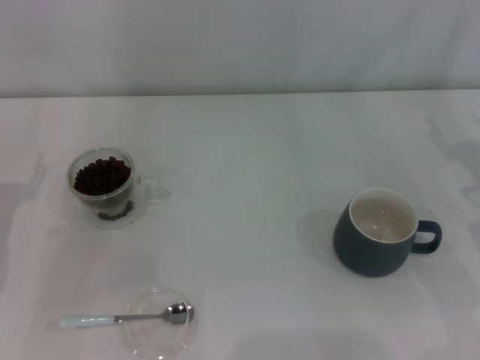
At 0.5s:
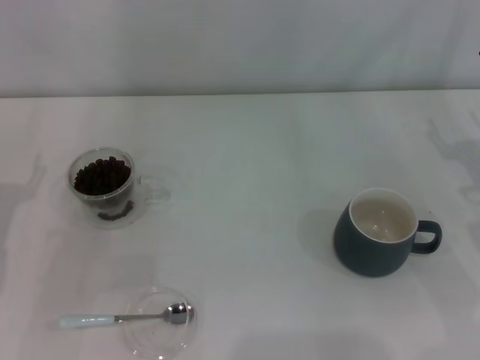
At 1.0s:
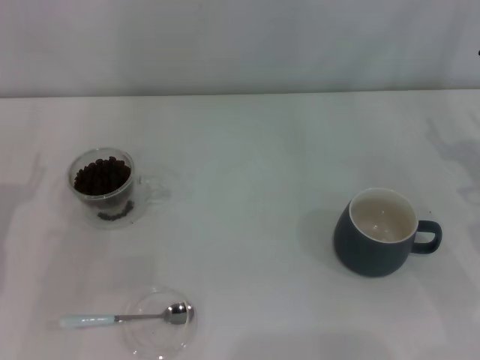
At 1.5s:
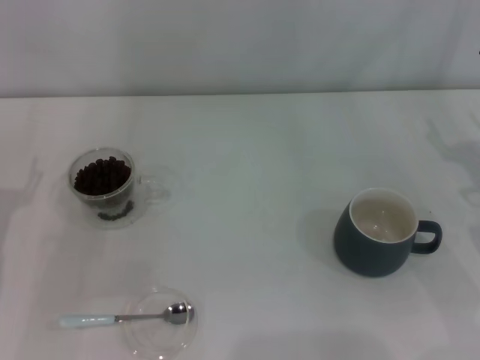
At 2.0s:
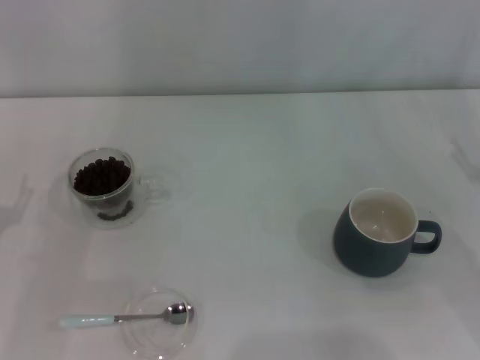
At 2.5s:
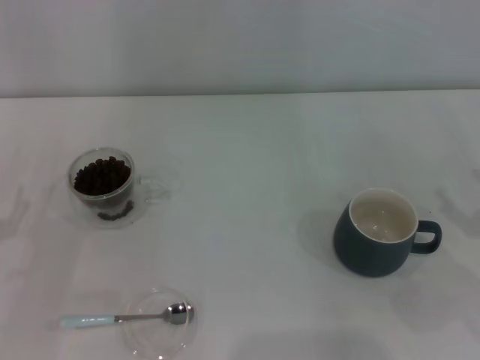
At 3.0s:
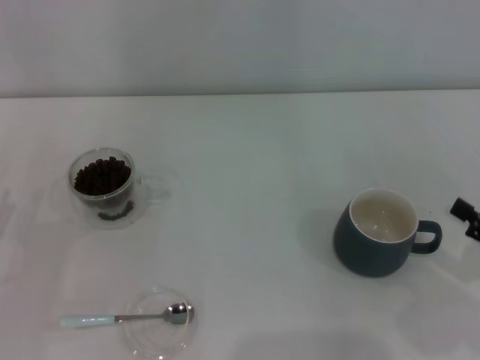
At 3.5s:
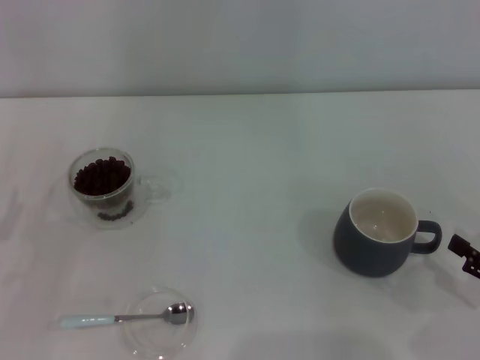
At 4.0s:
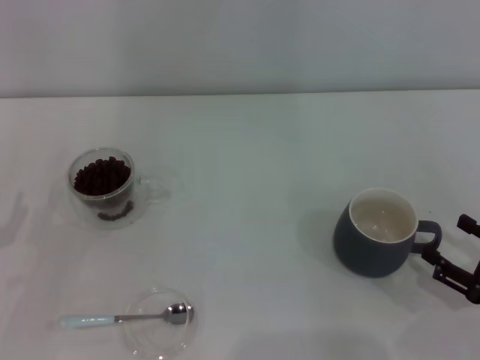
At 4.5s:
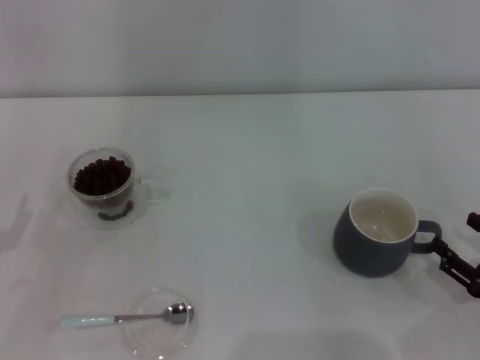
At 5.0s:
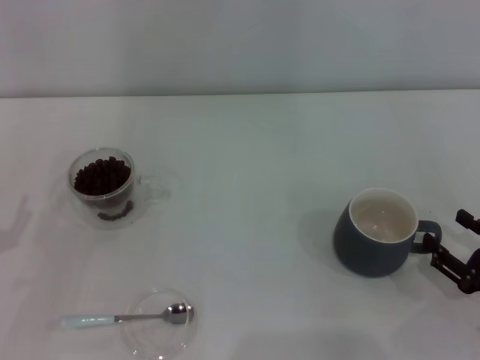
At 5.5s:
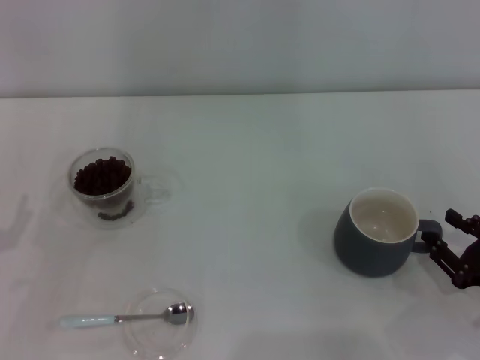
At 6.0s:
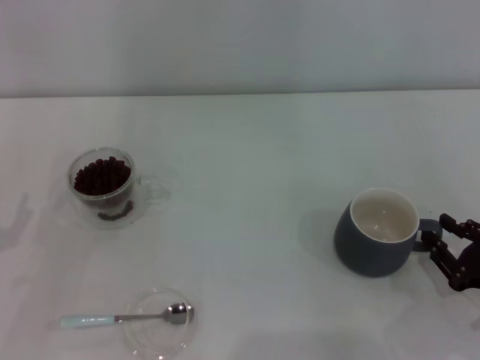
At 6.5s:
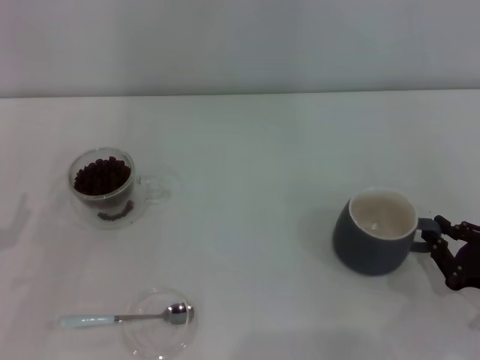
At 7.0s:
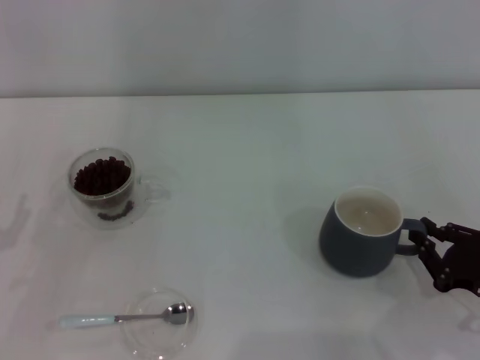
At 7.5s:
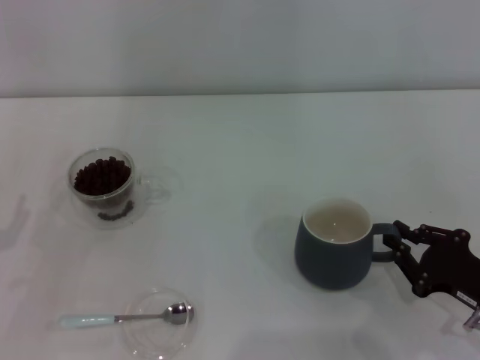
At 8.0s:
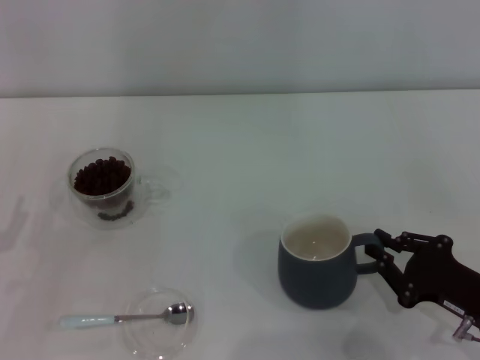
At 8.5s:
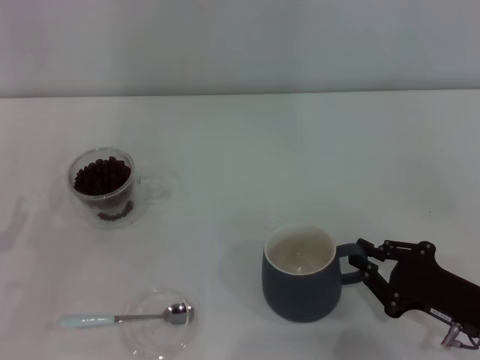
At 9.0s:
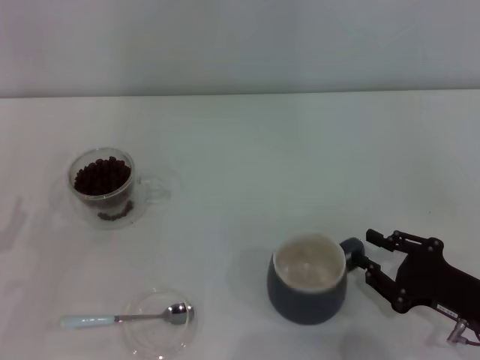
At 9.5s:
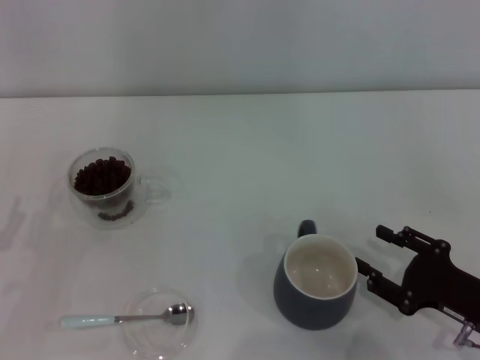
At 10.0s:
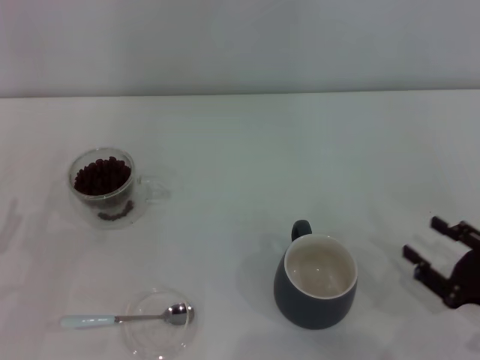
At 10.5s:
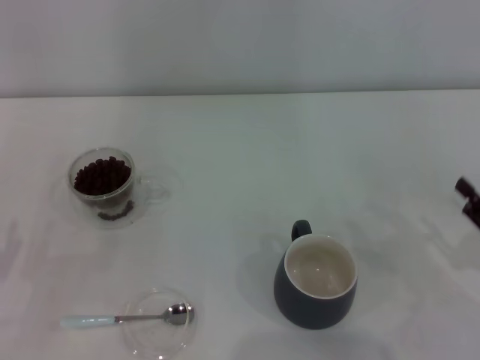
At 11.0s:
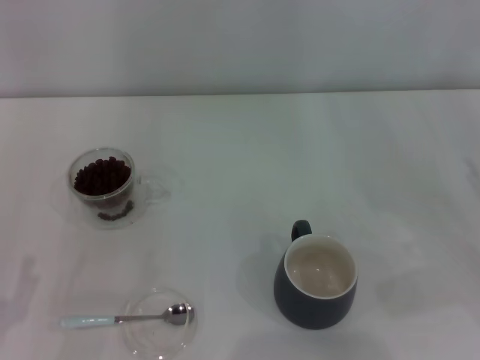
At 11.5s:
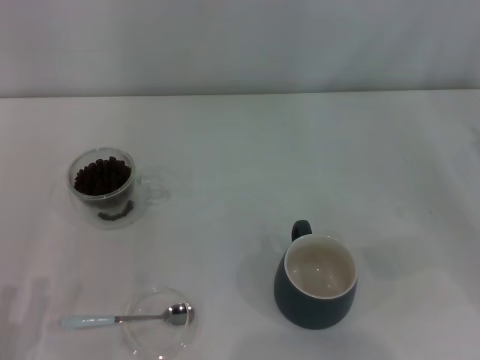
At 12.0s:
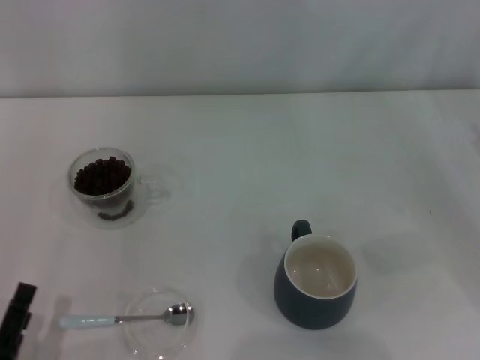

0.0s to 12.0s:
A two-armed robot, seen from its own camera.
Task of the whole recording: Use a blue spoon to take out the coffee beans from the glass and pour them into the gray cup.
Step, 0.0s to 9.5s: Move the cup to the center of view with the left gripper.
2.0s to 4.0s: The right gripper goes approximately 10 cm backward and downward.
4.0s to 6.0s: The right gripper closes its fingers.
6.0s to 8.0s: The grippers stay close to where they were, moving slightly.
8.0s to 10.0s: The right gripper opens its fingers.
10.0s to 12.0s: The left gripper moves backward, to the right and downward, about 15 cm. Meanwhile the right gripper shifts some 15 cm forward, upward and to the right.

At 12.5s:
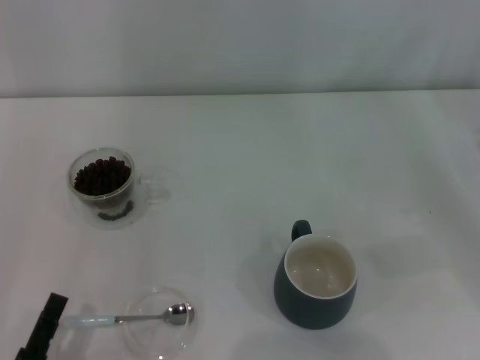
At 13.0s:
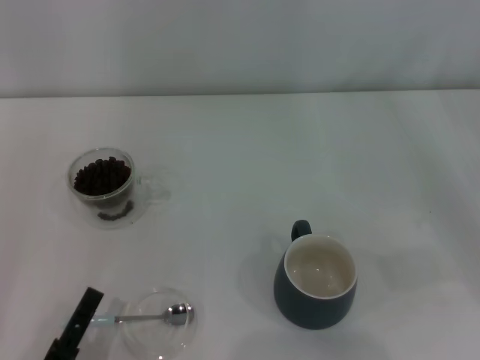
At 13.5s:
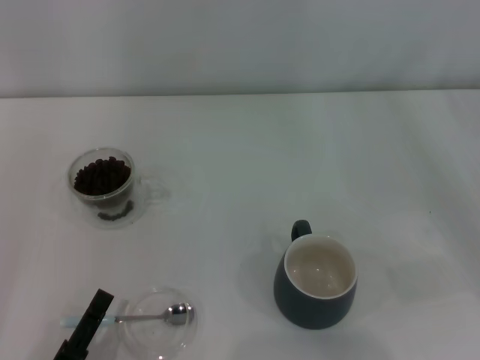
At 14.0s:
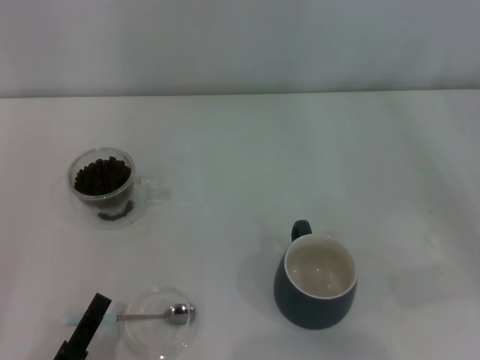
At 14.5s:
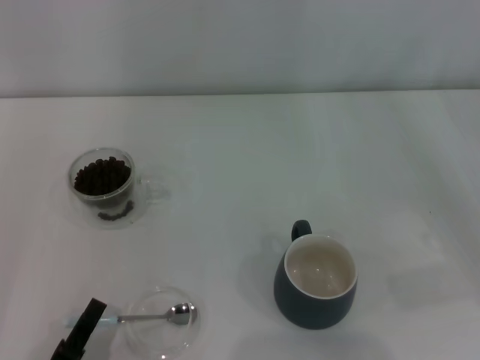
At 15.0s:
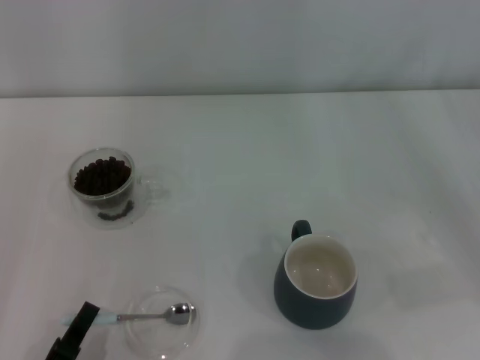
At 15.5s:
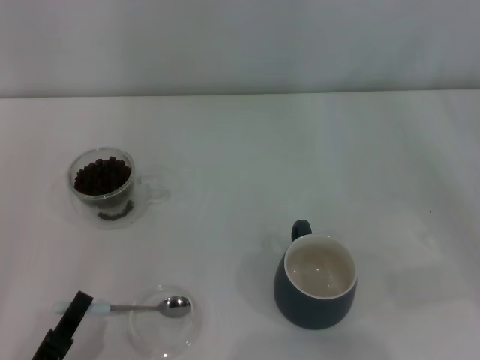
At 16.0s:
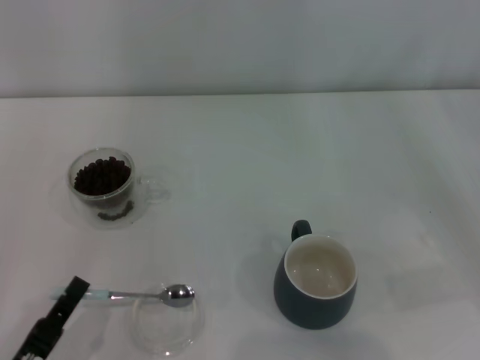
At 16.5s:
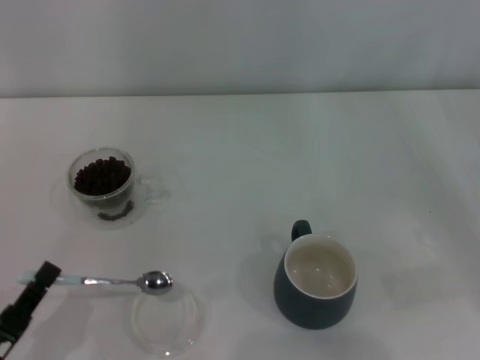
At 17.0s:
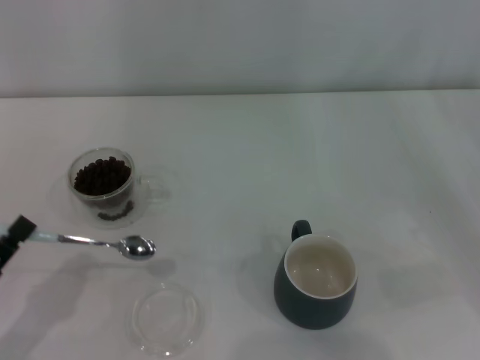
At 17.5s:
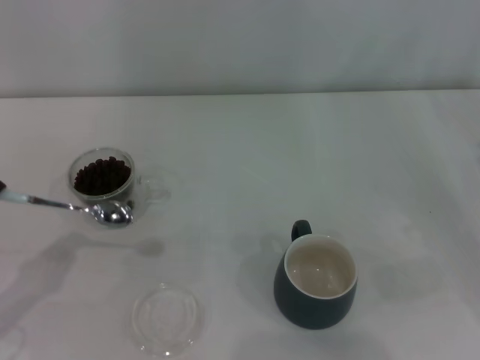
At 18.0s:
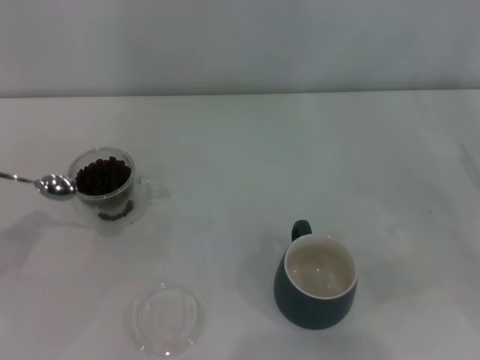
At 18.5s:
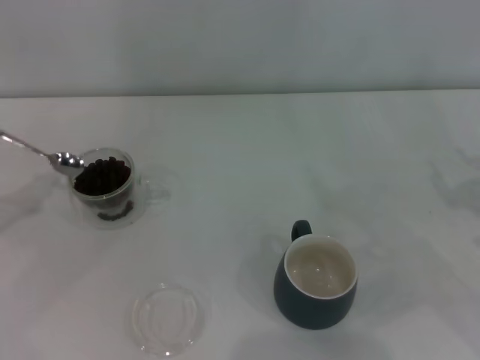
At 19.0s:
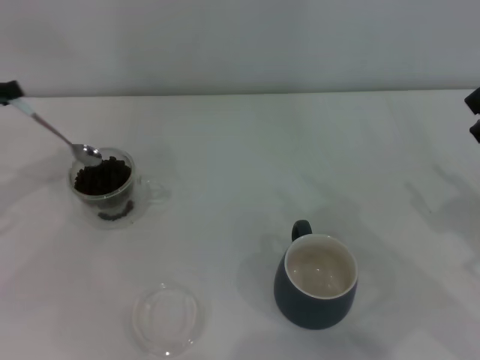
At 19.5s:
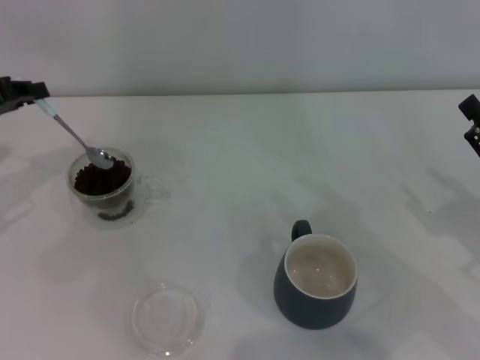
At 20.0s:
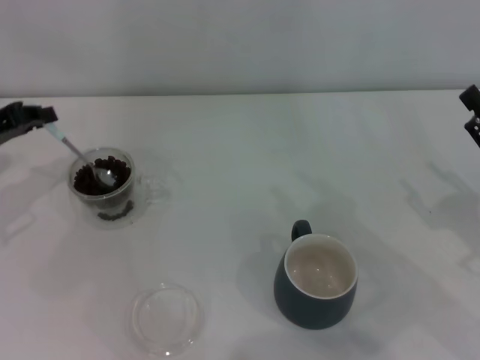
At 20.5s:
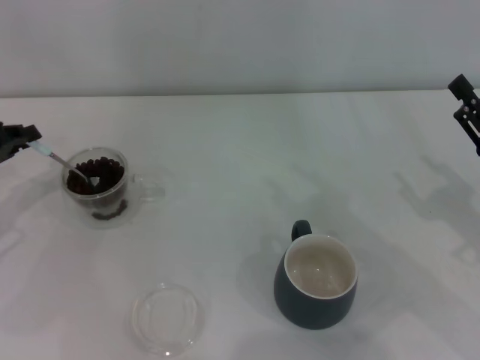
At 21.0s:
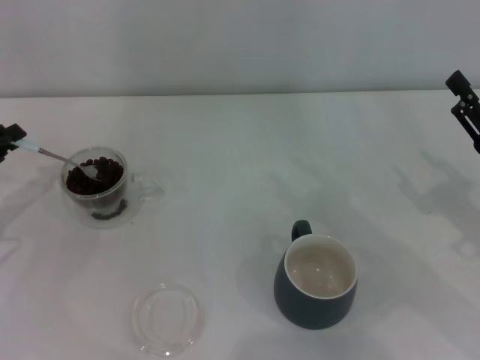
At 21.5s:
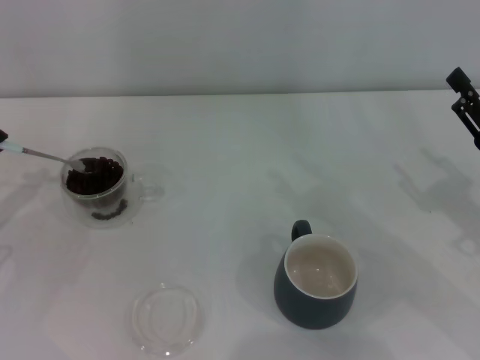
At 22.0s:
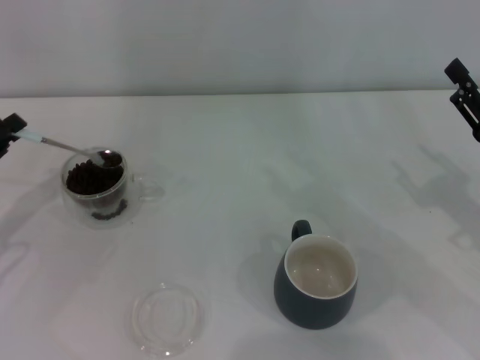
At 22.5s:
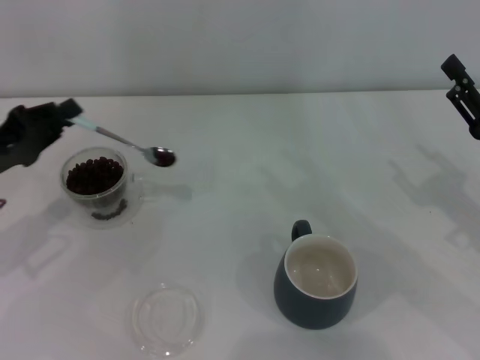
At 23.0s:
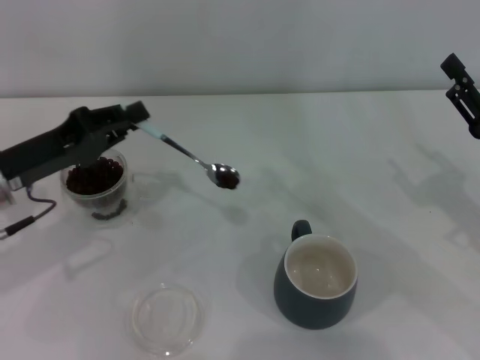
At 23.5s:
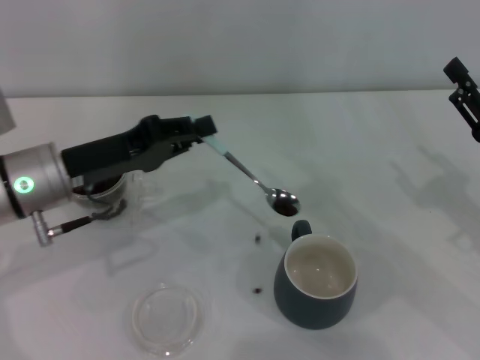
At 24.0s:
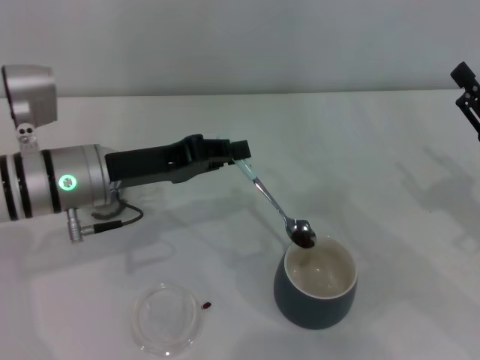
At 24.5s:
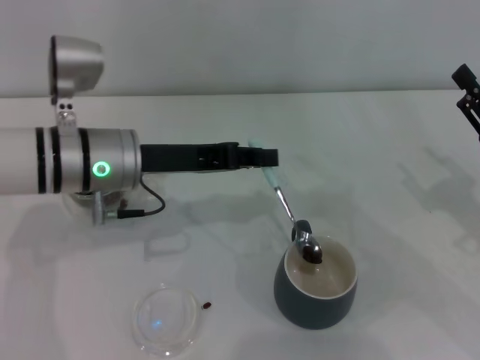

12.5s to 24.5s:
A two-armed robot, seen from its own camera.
Task of the whole recording: Use a blue spoon to take out the coffee beans from the glass and pour them into the gray cup.
Step, 12.5s to 16.5s: Pick up the spoon with the right gripper.
12.5s to 14.5s: The left gripper closes.
14.5s to 16.5s: The left gripper shifts approximately 5 cm to the left, and closes up.
16.5s to 18.5s: The left gripper moves forward, upward and to the left, approximately 25 cm.
18.5s to 20.5s: The left gripper shifts roughly 5 cm forward.
22.5s to 24.5s: The left gripper travels to the right by approximately 15 cm.

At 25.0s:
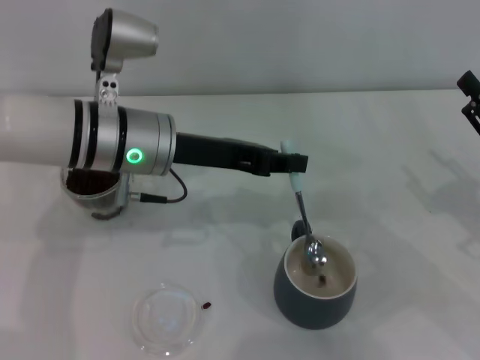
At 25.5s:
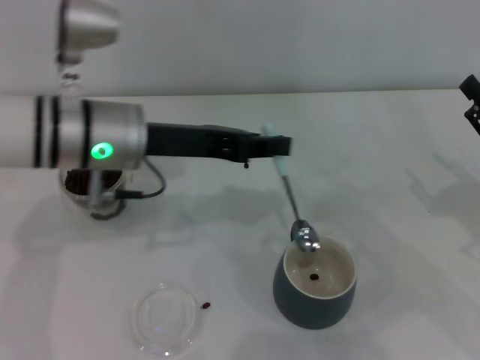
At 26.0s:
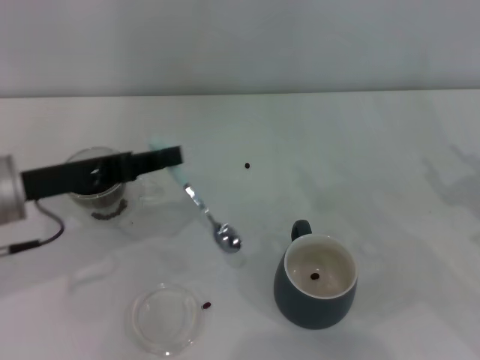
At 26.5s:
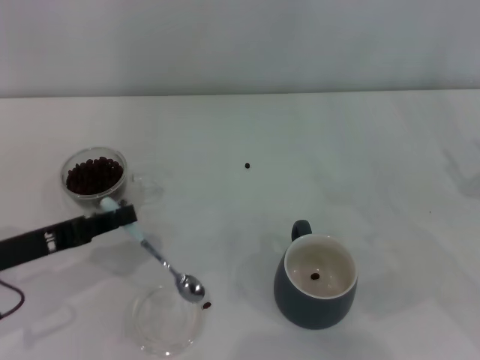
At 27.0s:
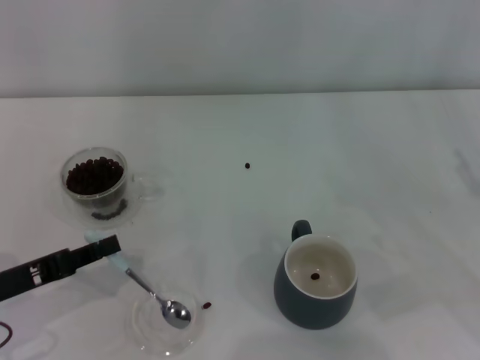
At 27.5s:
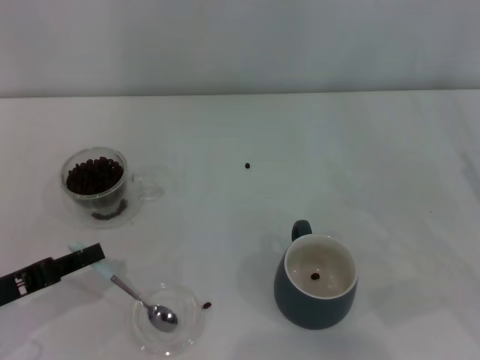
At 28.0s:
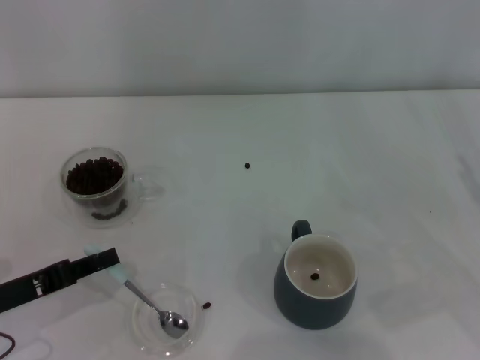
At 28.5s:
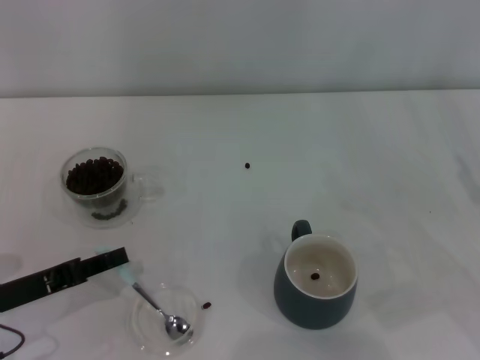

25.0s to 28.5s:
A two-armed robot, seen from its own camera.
Task of the whole recording: Use a blue spoon to take out the coffee beans from the glass and pour them into the gray cup.
25.0s to 27.0s: The left gripper is displaced to the left, backward and downward by approximately 25 cm.
27.0s to 28.5s: The grippers stay close to where they were, moving slightly.
